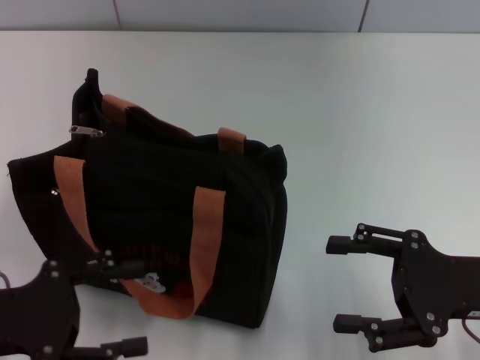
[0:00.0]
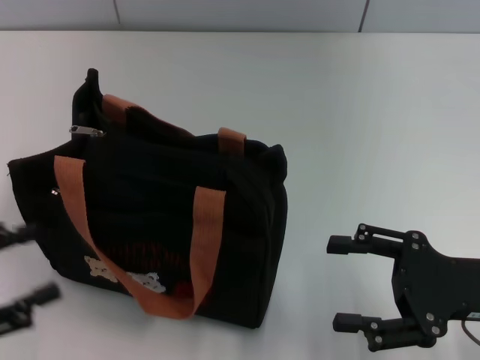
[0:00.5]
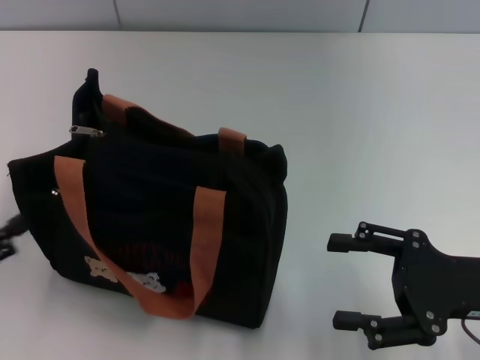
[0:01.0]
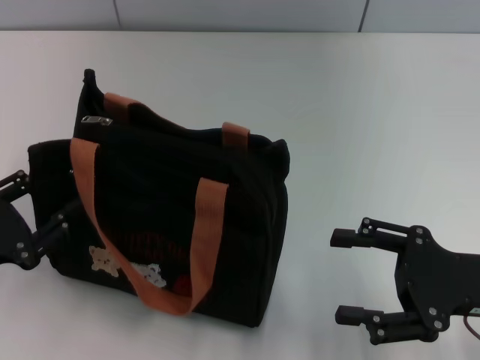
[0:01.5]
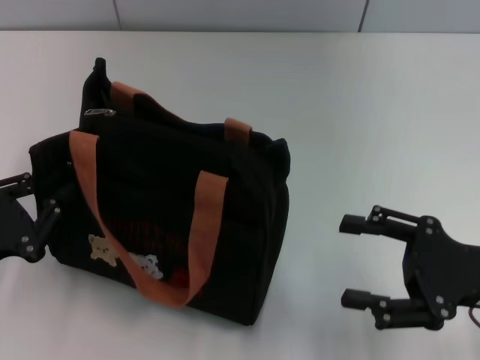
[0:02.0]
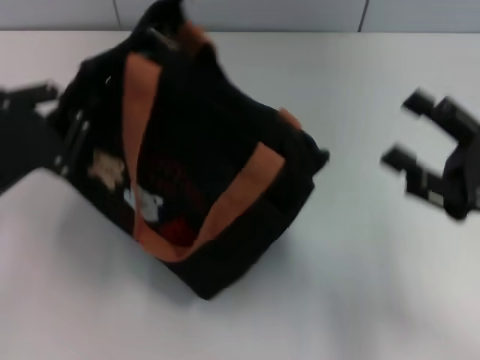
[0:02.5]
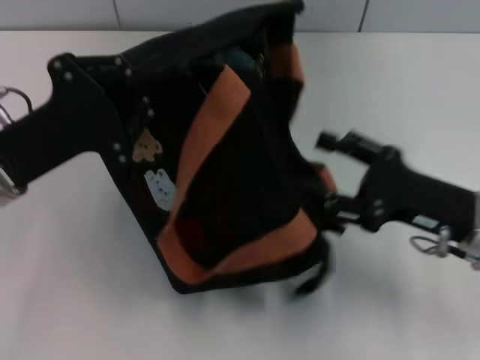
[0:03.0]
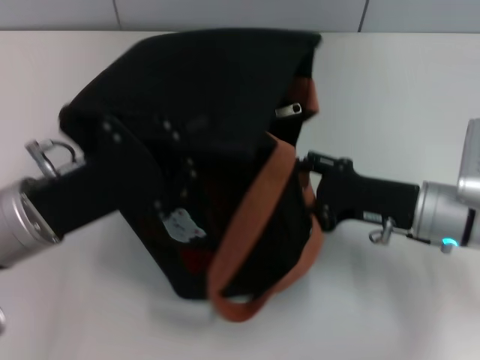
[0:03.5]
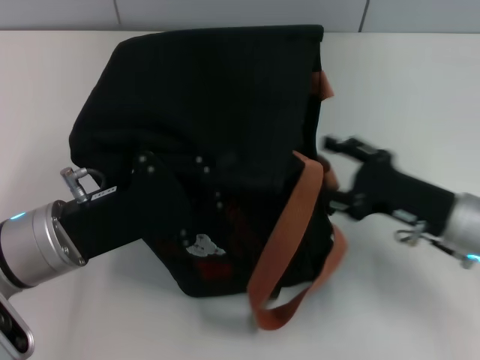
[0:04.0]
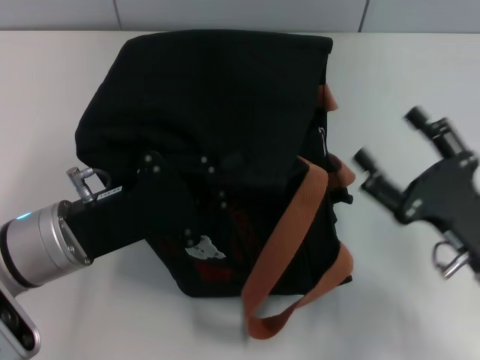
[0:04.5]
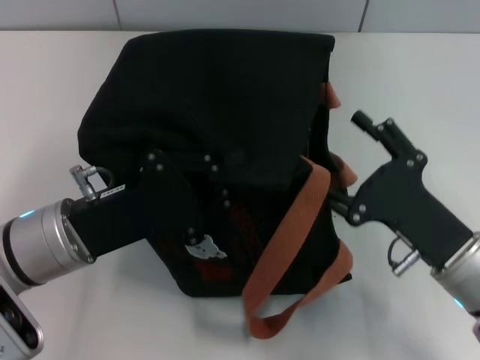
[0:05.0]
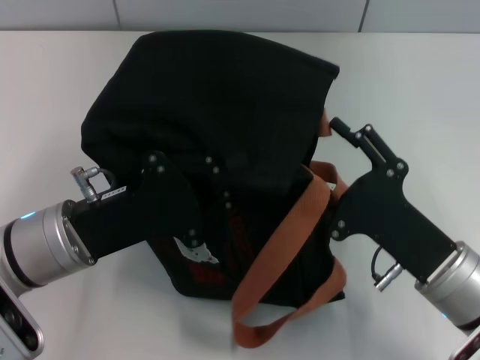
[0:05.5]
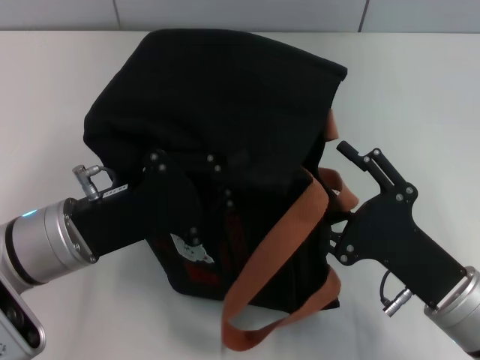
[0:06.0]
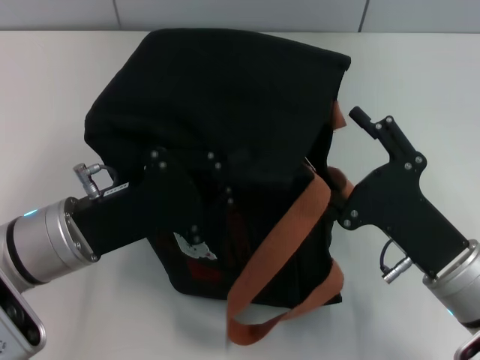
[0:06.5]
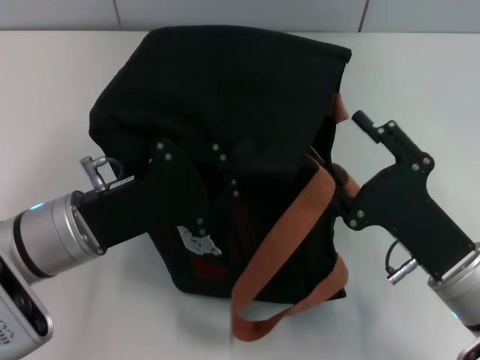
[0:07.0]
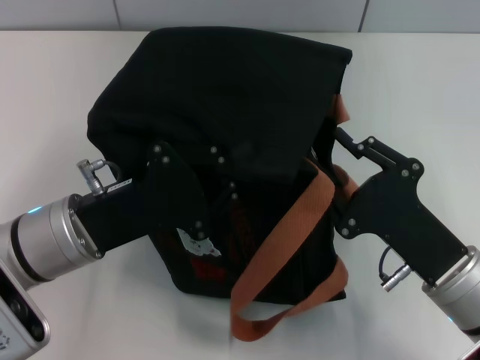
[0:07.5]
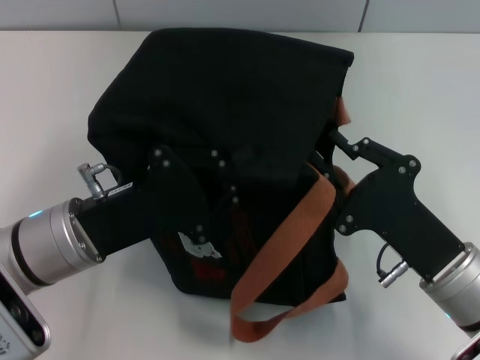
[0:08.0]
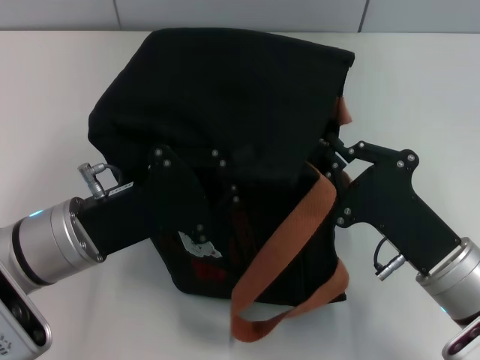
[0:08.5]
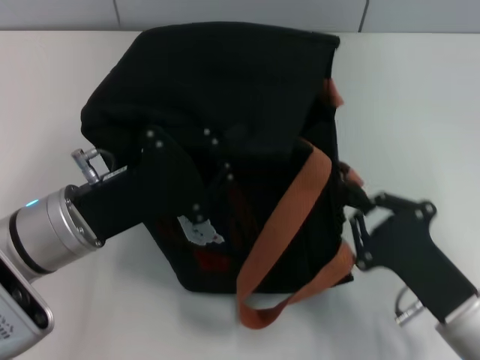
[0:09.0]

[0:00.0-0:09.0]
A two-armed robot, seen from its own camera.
0.0 to 2.0 s: The left gripper closes.
2.0 to 4.5 s: The right gripper goes forward and returns, approximately 10 cm each way. The left gripper travels to the right and forward by roughly 15 cm.
7.0 to 9.0 s: The right gripper closes.

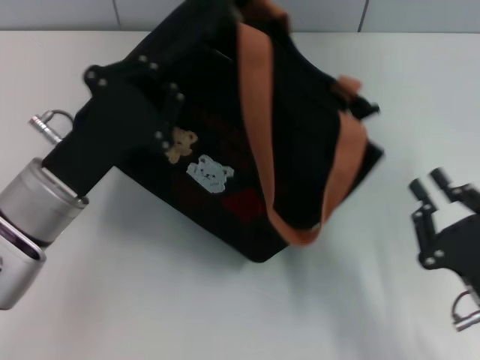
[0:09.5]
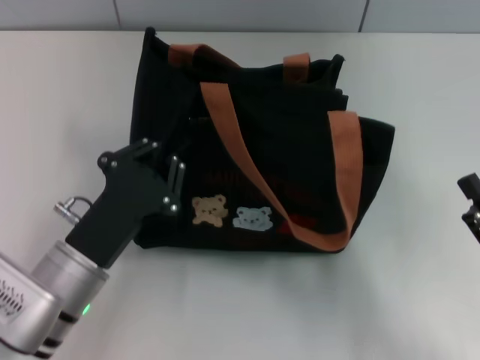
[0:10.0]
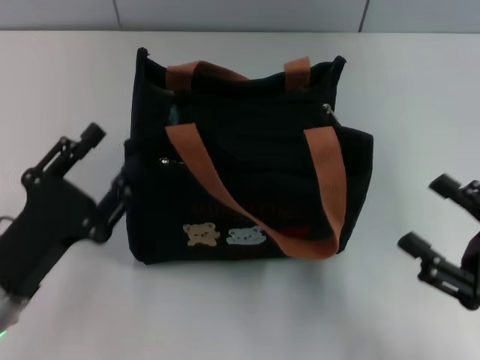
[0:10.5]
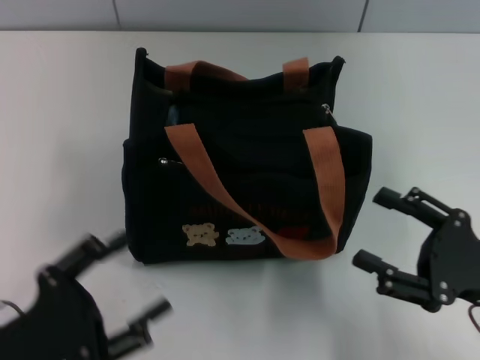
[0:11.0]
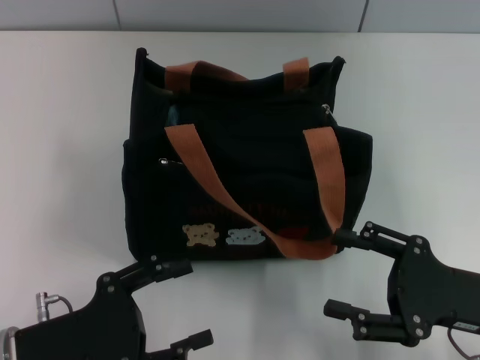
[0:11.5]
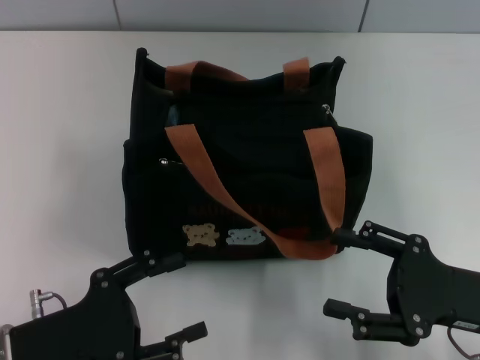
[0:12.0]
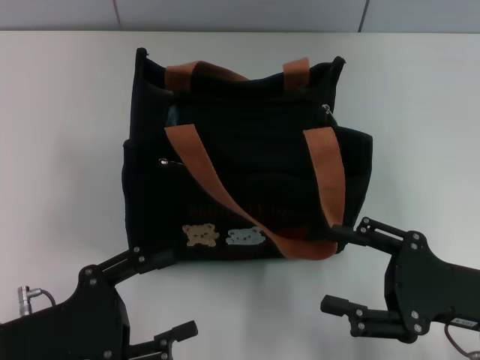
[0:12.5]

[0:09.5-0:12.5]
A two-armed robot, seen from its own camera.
9.5 to 11.0 s: The right gripper changes place by roughly 5 cm, and opens; the left gripper shifts about 15 cm backward and to the left, and opens up.
11.0 to 12.5 s: There are only small adjustments of the grippers.

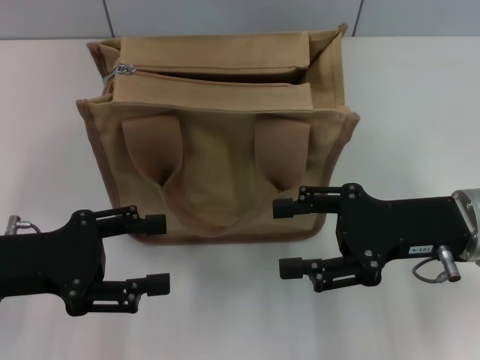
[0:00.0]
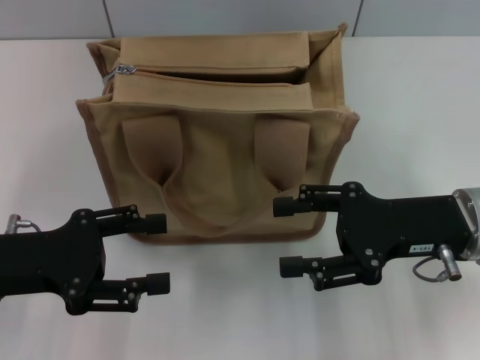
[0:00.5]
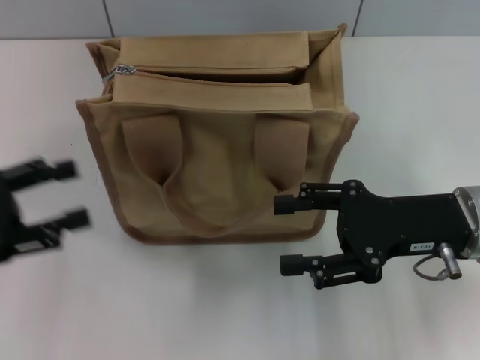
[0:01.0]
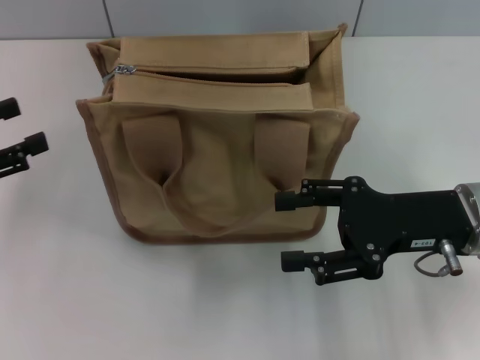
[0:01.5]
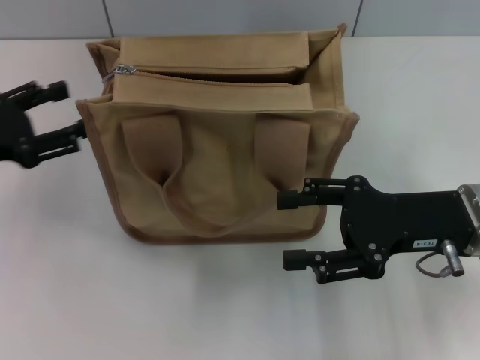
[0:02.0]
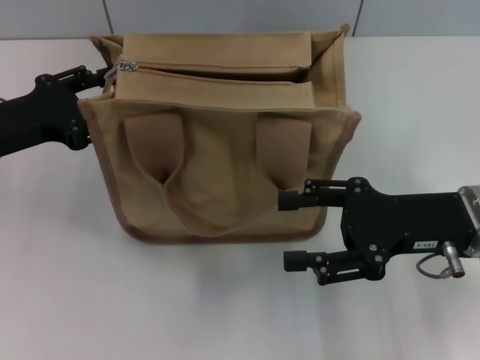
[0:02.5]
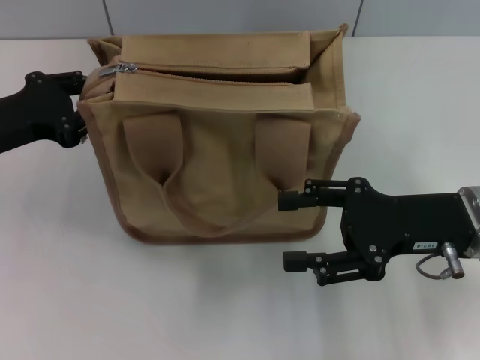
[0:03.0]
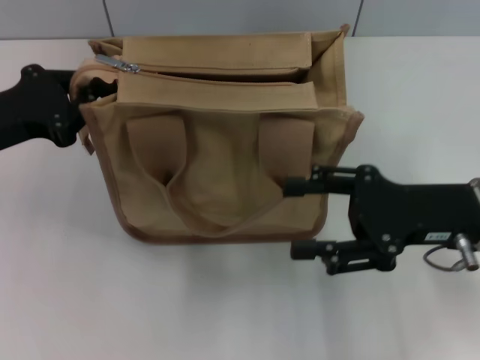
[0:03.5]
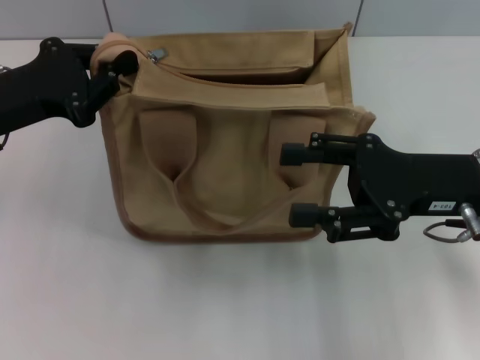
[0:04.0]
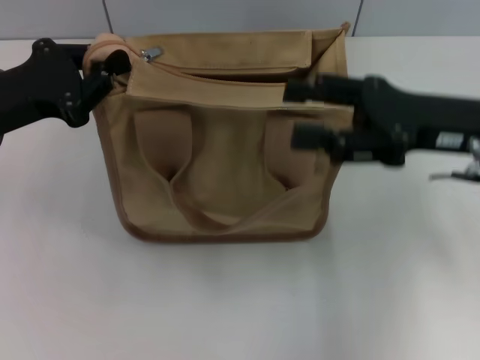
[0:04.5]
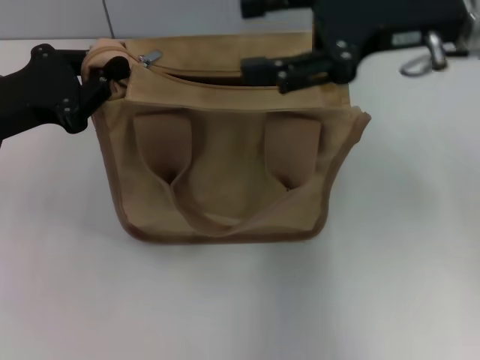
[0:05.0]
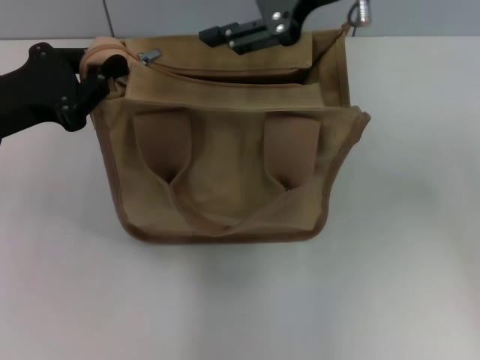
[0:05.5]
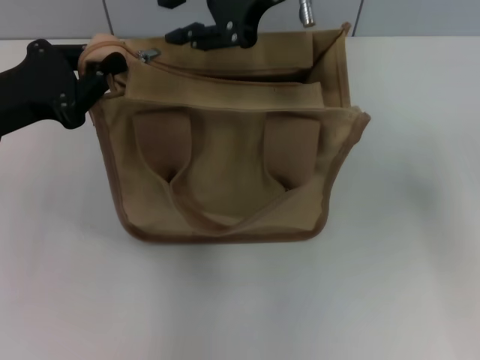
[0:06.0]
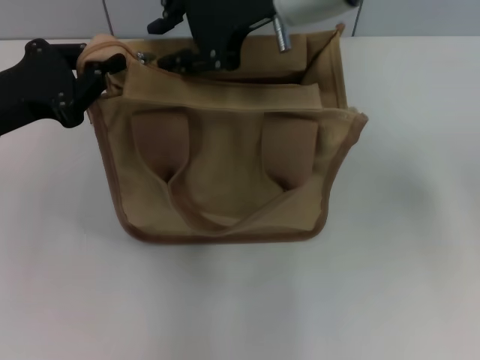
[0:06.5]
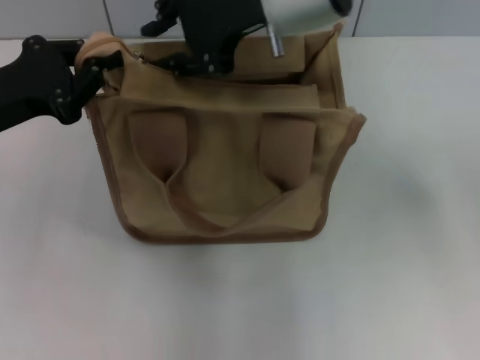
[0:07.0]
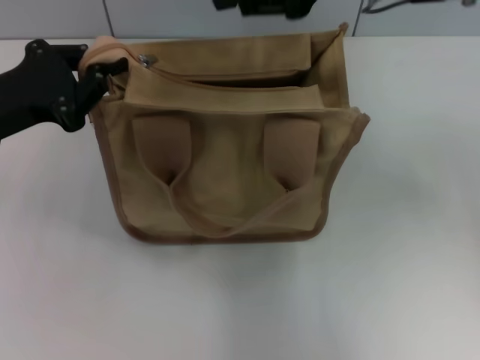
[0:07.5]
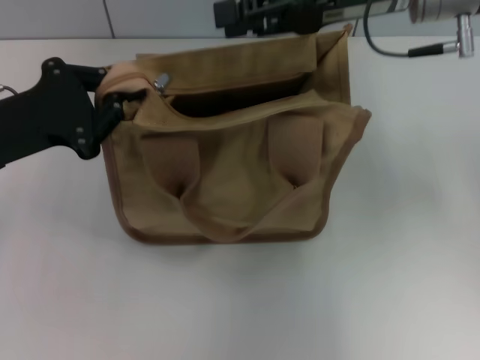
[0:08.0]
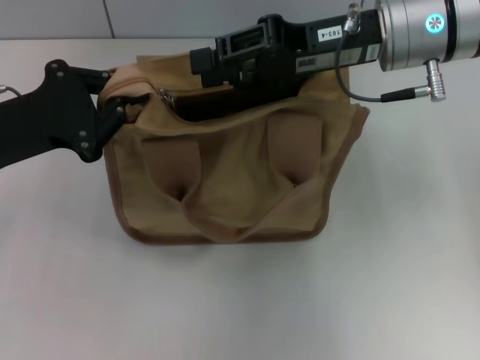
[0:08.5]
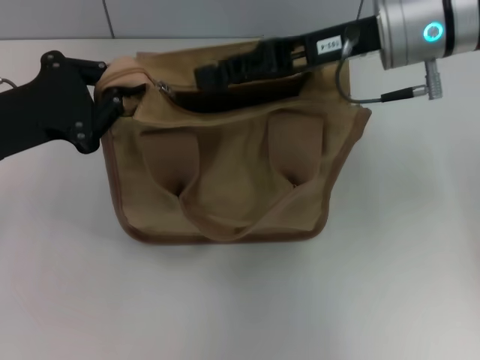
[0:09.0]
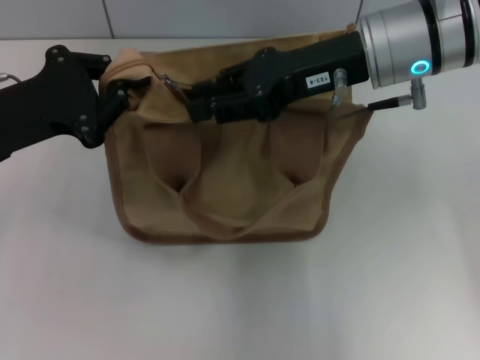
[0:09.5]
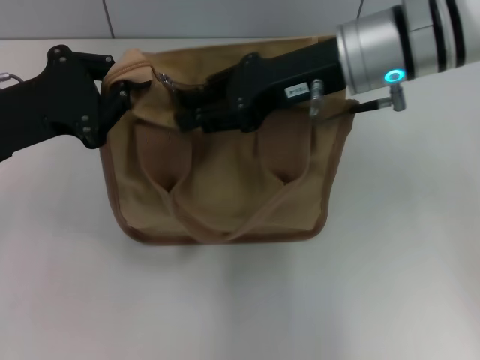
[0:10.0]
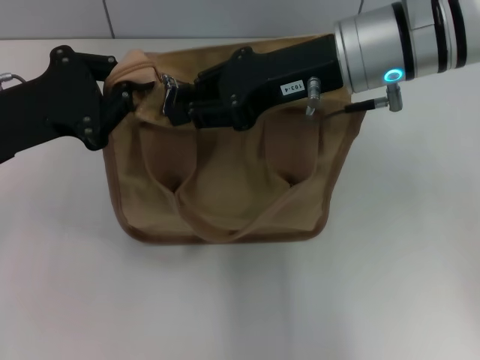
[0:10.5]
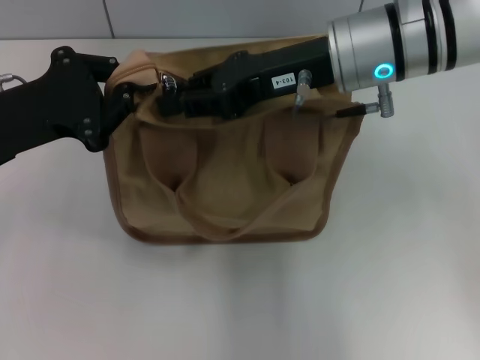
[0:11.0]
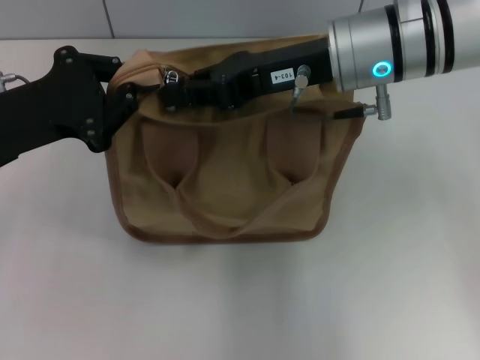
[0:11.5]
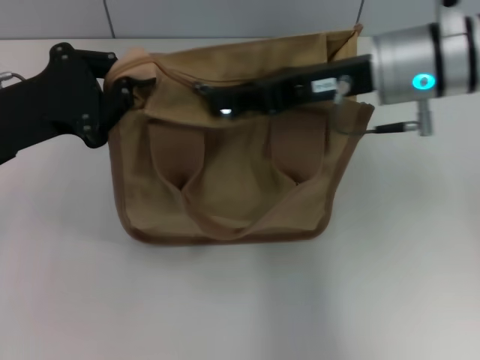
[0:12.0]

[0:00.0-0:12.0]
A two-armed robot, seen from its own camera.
0.0 to 2.0 s: The left gripper travels forward and to the left by some 10 cm.
2.0 to 4.0 s: The left gripper travels to the right by some 5 cm, and closes up.
4.0 to 6.0 s: The right gripper travels upward, to the left and forward by about 25 cm, and closes up.
6.0 to 8.0 s: The right gripper goes about 10 cm to the right and downward.
8.0 to 10.0 s: The right gripper ends up some 5 cm from where it was.
10.0 to 12.0 s: The right gripper closes its fingers.

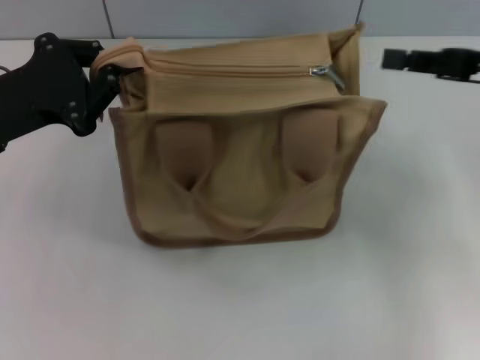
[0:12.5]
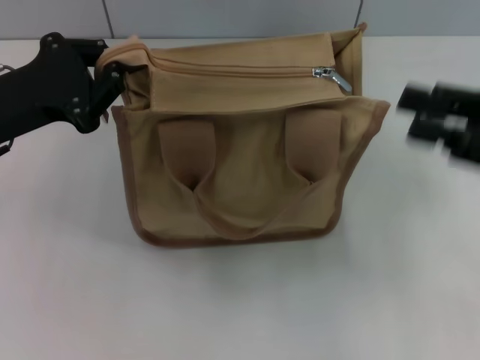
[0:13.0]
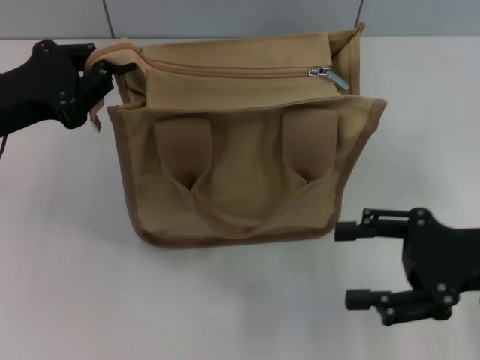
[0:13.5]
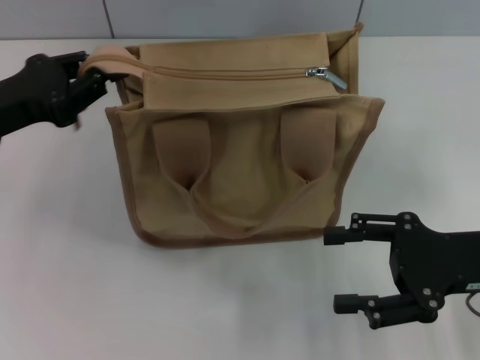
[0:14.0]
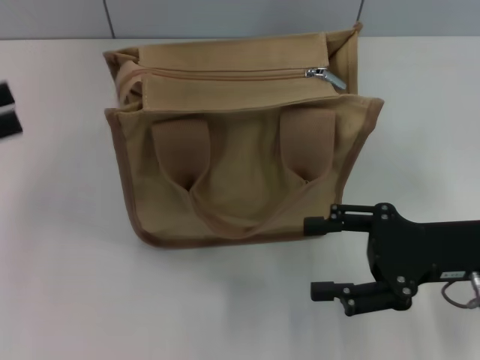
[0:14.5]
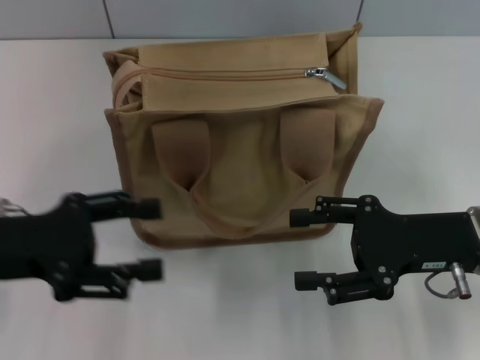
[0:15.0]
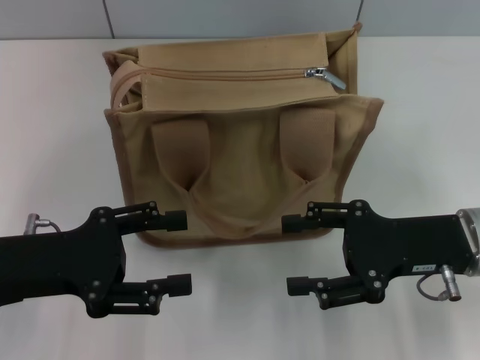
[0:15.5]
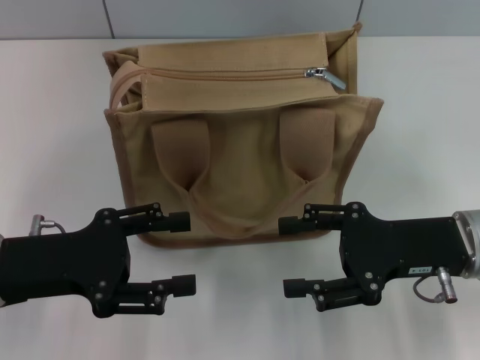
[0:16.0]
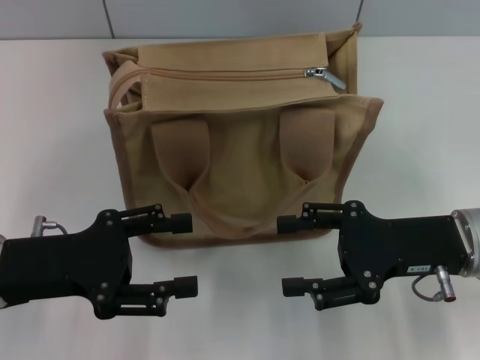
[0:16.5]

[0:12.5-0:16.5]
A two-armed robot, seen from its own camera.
Step, 12.5 to 14.0 s: Grab the zipper with your left hand.
12.5 to 14.5 s: The left gripper moves to the left and backward, roughly 10 cm, and opens up. The right gripper moves downward and backward, approximately 10 cm, and opens up.
14.5 to 16.5 s: The left gripper heads to the right and downward, covering about 15 cm.
